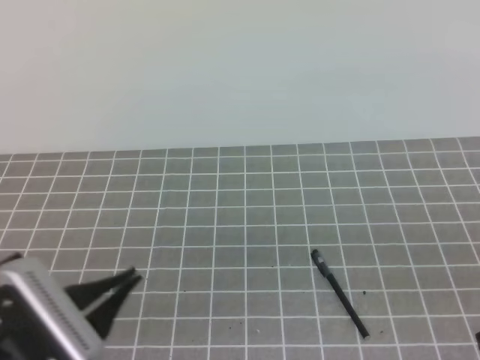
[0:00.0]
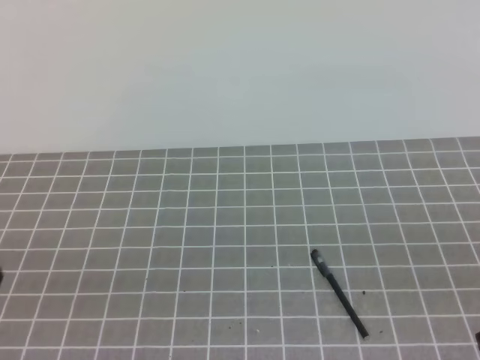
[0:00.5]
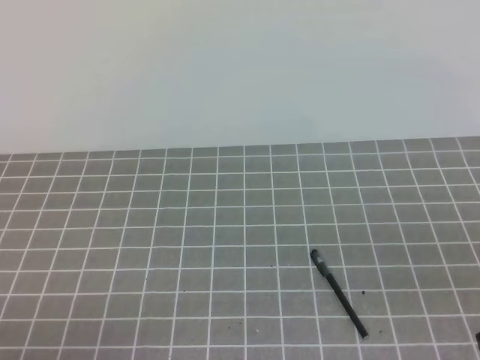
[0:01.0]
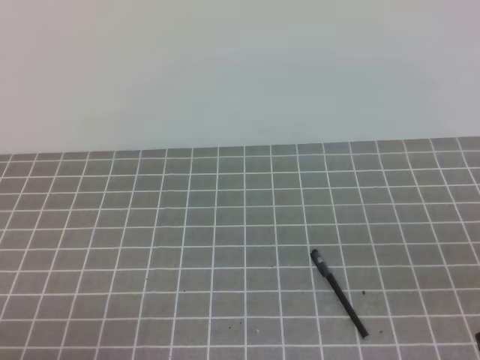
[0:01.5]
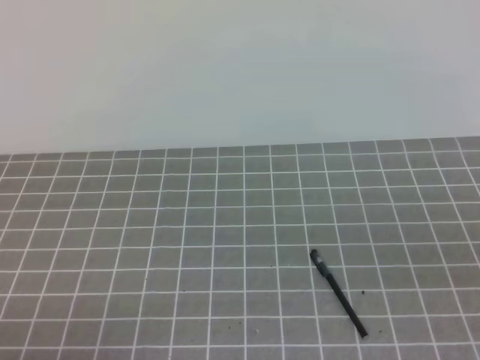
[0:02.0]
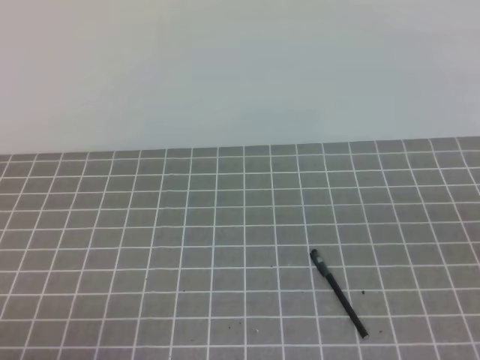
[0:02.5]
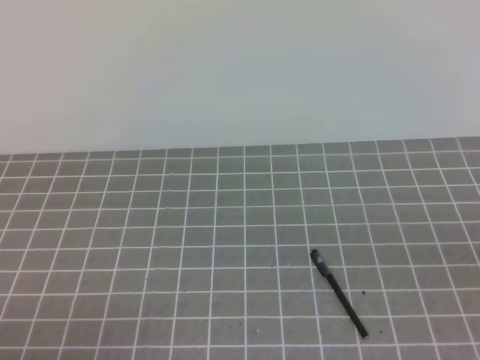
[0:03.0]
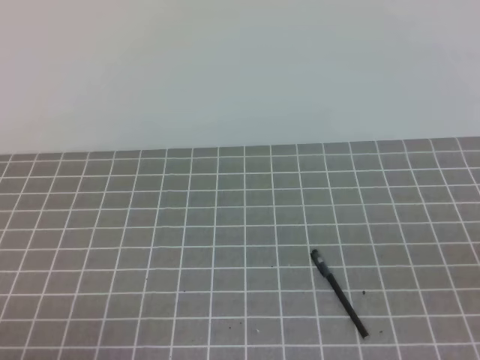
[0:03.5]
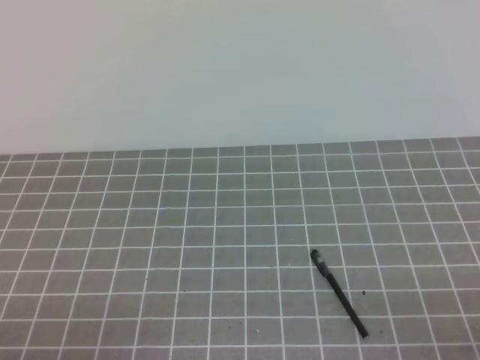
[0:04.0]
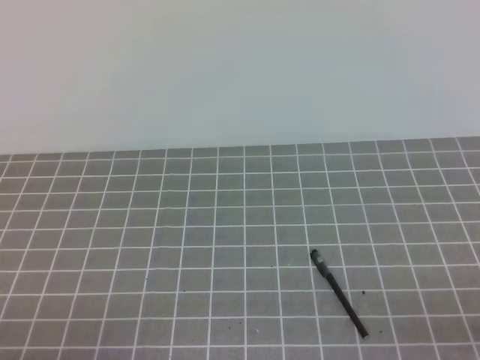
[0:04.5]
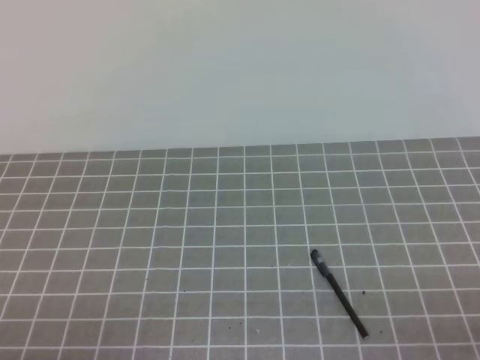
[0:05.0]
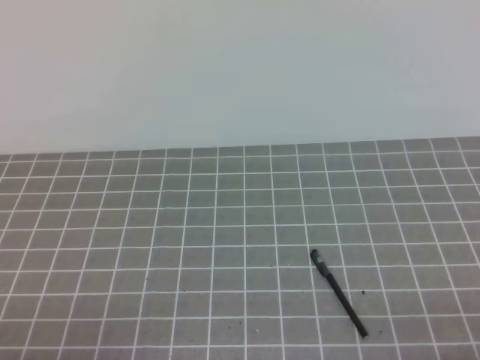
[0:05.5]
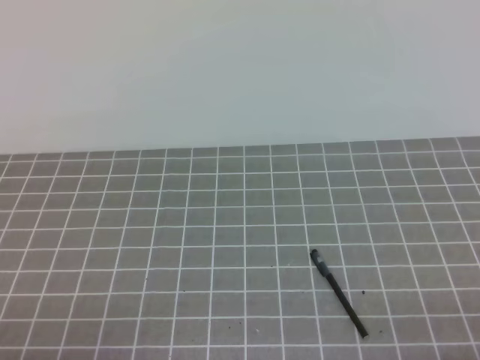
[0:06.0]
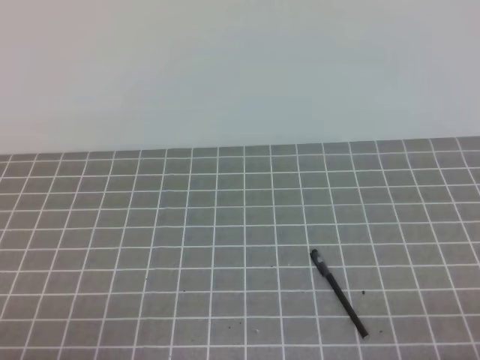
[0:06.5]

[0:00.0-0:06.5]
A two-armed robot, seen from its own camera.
Task of the whole recording: on the grey tablecloth, hold the pen cap in one hand and the pen in the other, then cover the pen cap.
Step, 0:00.0 to 0:06.5: Put the cap on the pen.
0:00.0 to 0:02.0: The left gripper moves to the left, backward and downward, about 15 cm.
